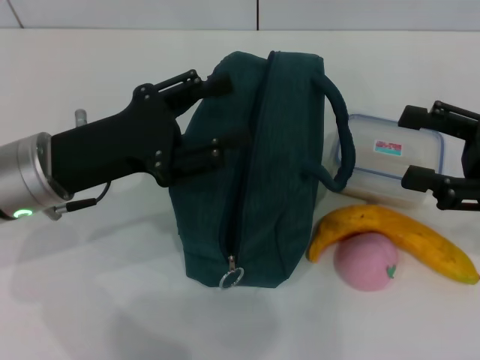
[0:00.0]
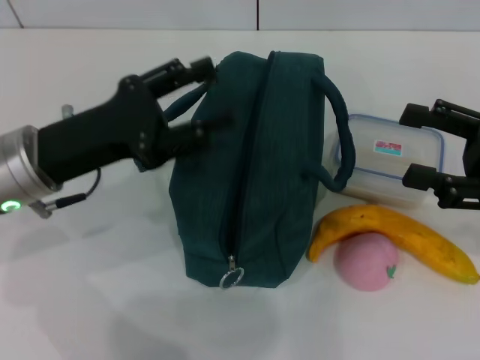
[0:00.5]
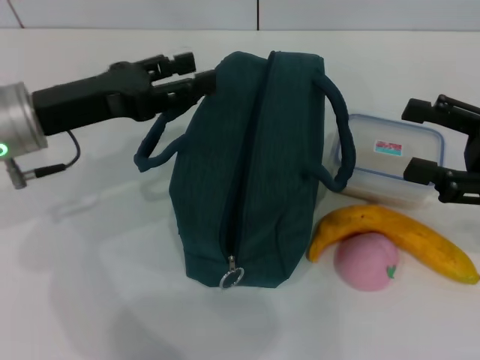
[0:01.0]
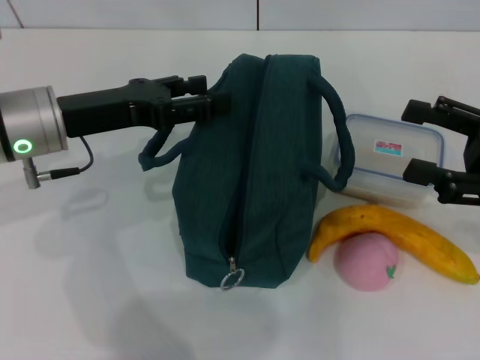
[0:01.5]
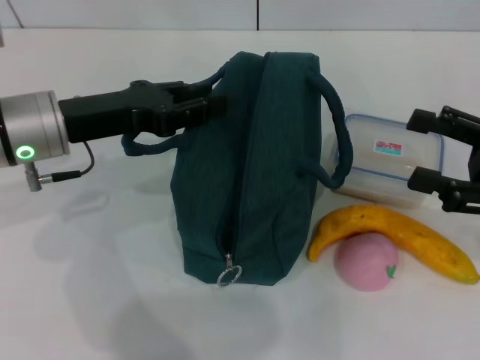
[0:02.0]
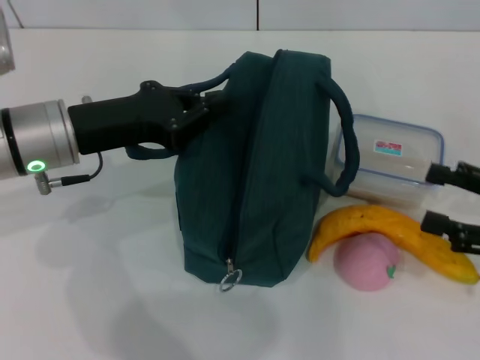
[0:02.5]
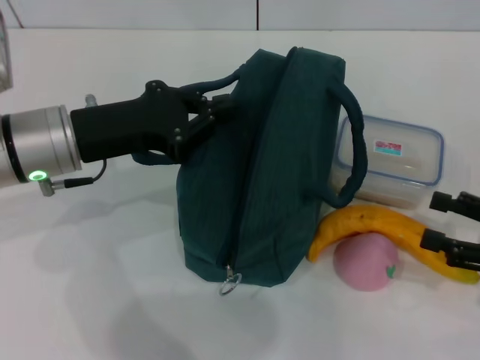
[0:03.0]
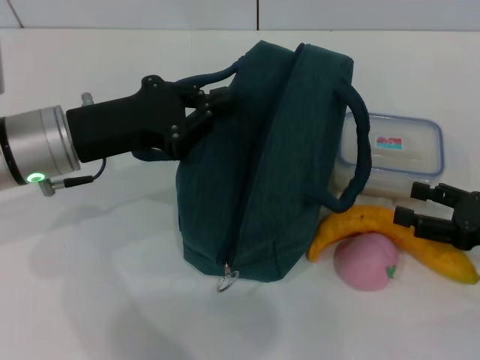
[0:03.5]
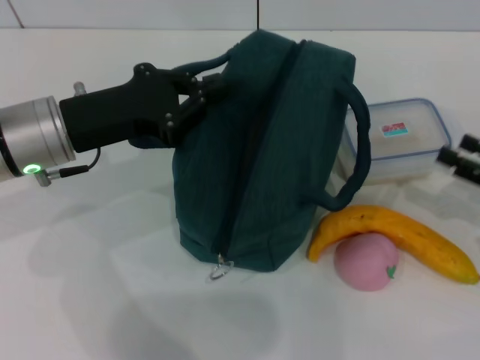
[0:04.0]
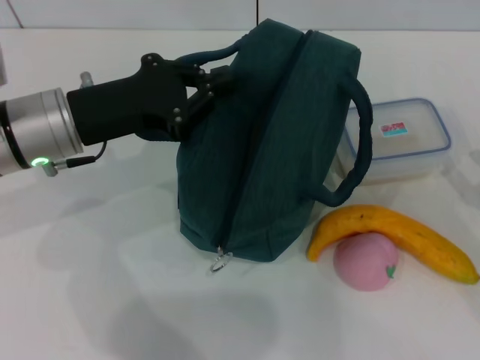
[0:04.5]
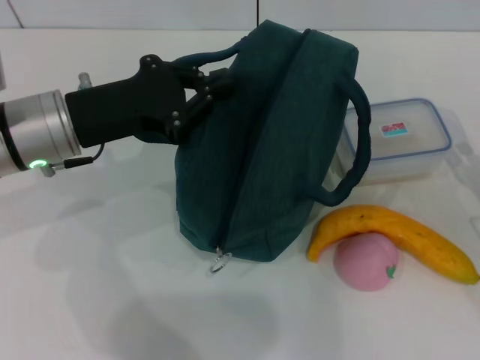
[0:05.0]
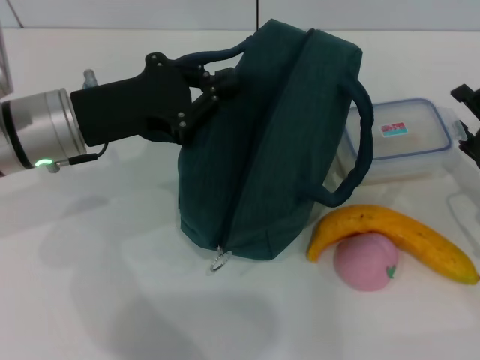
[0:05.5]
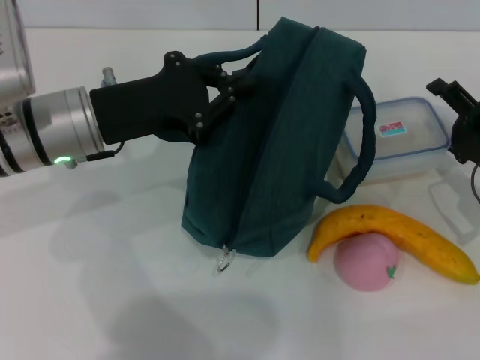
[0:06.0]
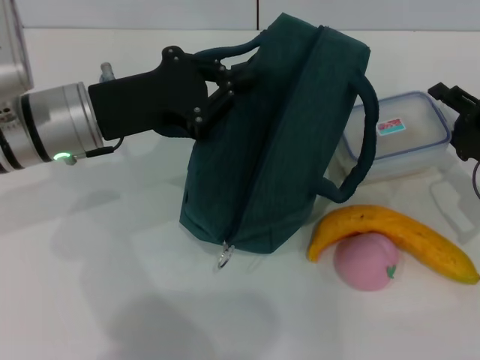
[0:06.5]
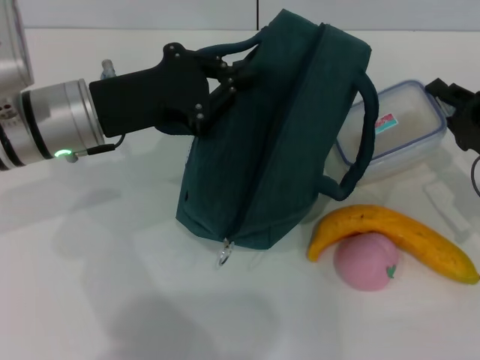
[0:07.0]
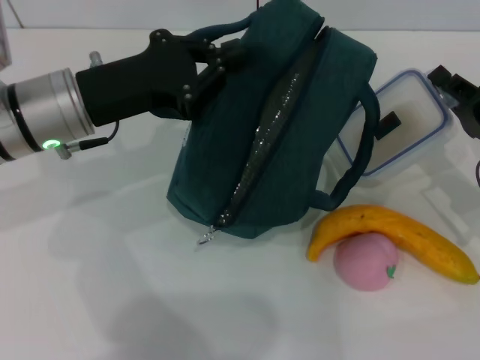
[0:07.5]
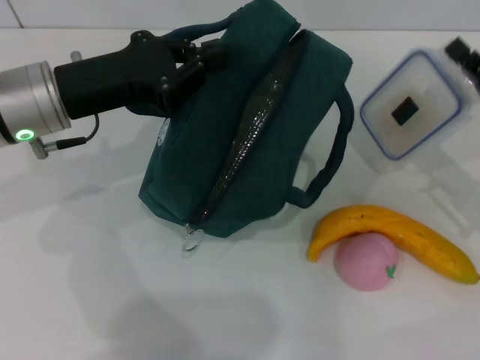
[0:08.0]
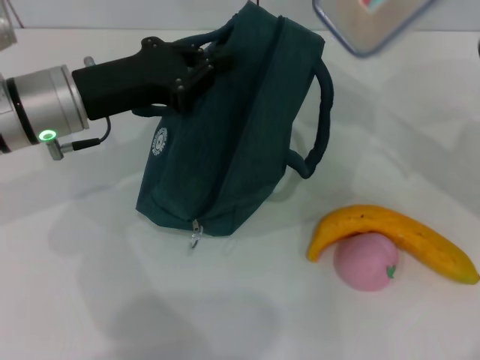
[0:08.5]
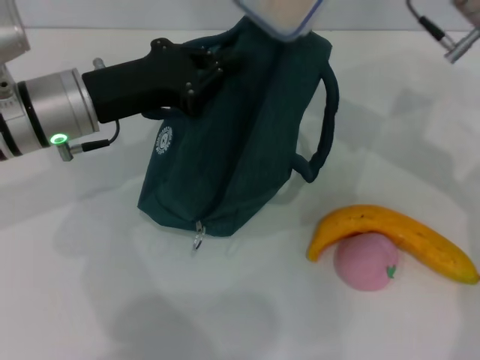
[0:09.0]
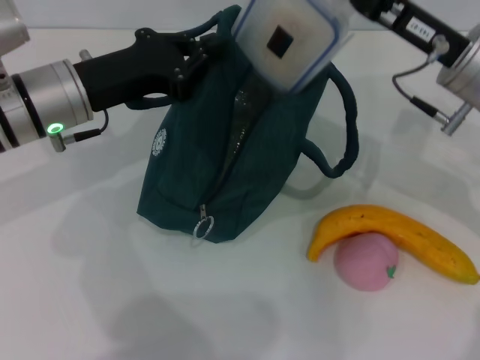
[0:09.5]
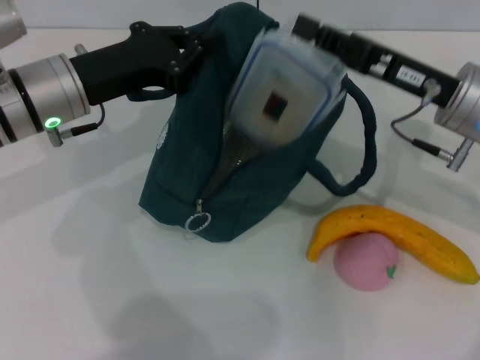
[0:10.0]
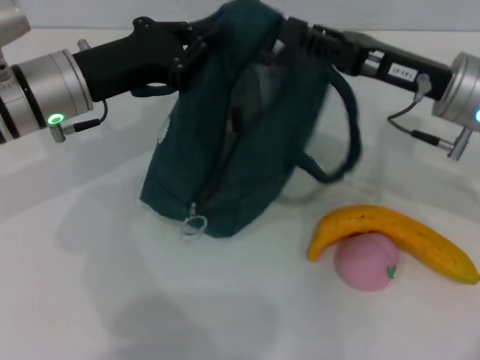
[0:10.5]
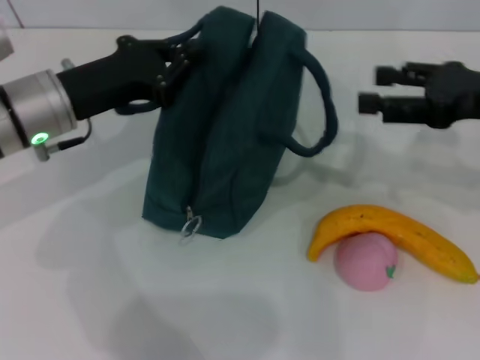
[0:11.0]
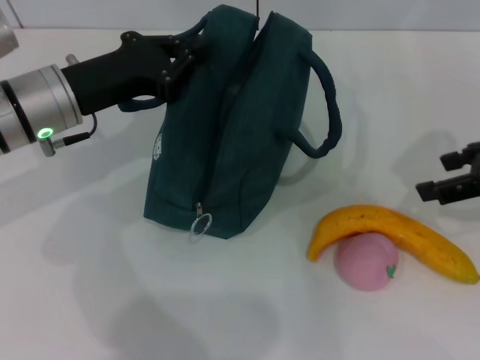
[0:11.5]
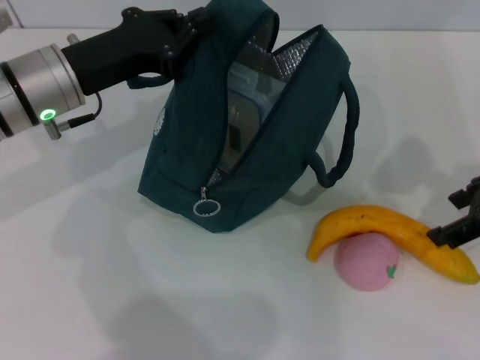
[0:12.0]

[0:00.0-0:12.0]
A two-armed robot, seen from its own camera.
Step, 0:00.0 to 0:04.5: Hold the lunch bag with your left hand.
Step, 0:05.0 to 0:06.5: Pick up the lunch box with your right hand.
Step, 0:07.0 to 0:10.5: Place the lunch box into the lunch bag with your right hand.
0:02.0 to 0:04.0: The right gripper is displaced downward by roughly 5 cm. Meanwhile the left gripper closes its fingers.
0:04.0 to 0:06.0: The right gripper is displaced to the left by some 5 cm.
0:06.0 to 0:08.0: The right gripper closes its fingers.
0:08.0 to 0:10.0: The right gripper heads to the left and upward, covering approximately 10 cm.
0:10.0 to 0:12.0: The right gripper shifts roughly 10 cm to the right and upward, and opens up.

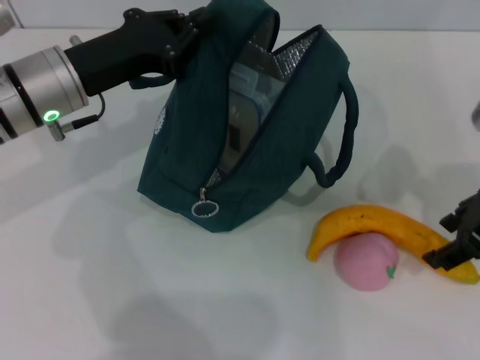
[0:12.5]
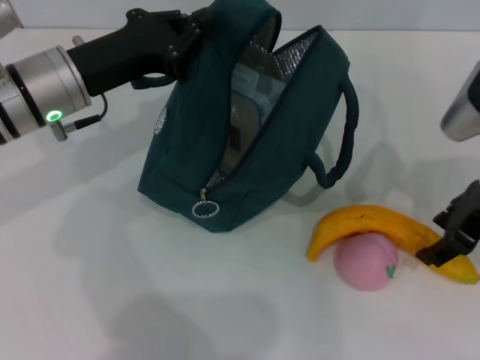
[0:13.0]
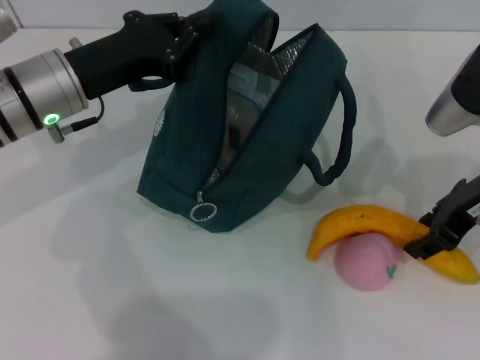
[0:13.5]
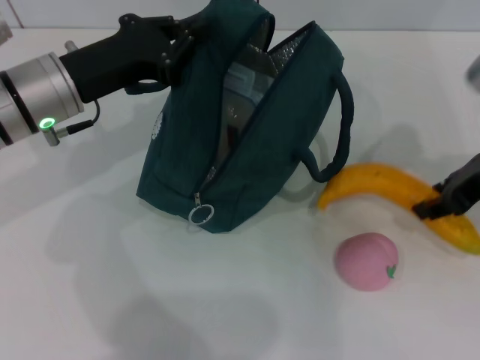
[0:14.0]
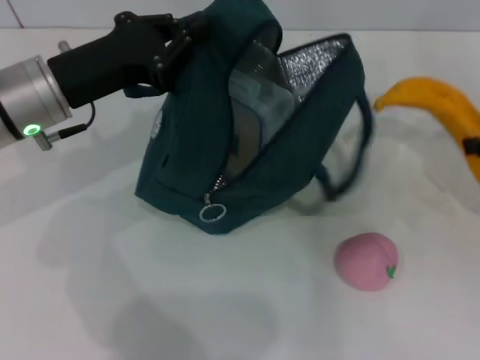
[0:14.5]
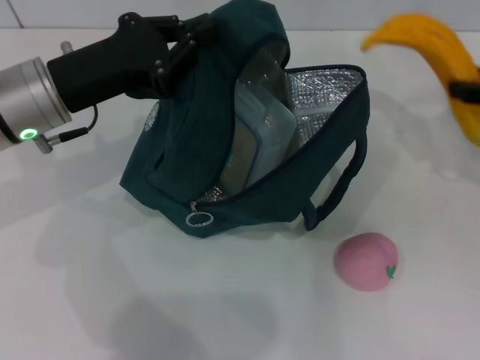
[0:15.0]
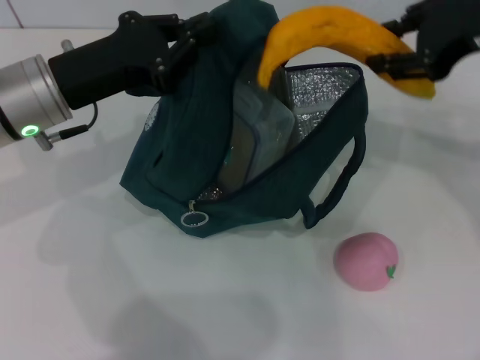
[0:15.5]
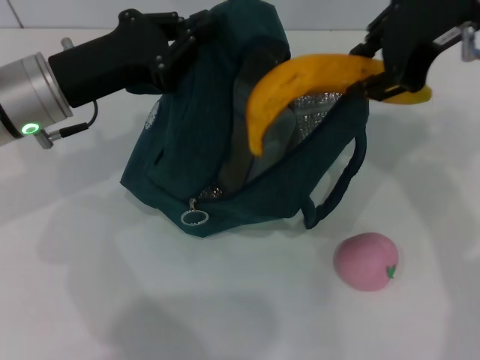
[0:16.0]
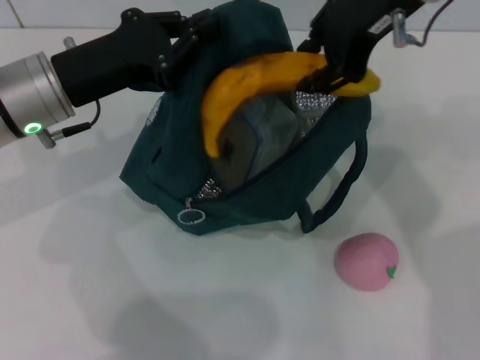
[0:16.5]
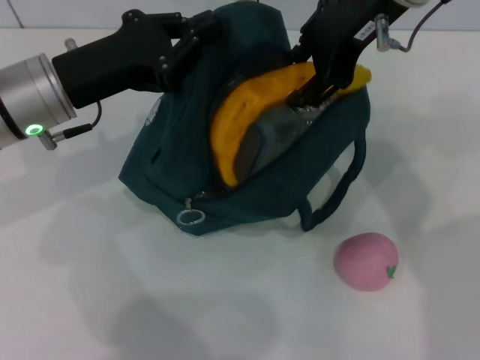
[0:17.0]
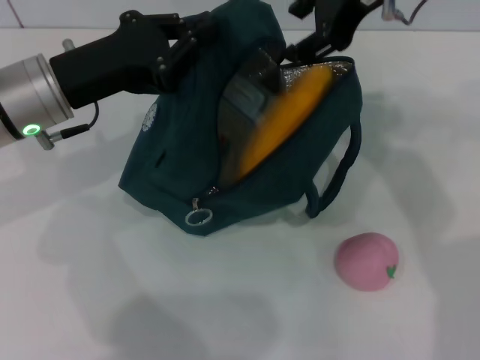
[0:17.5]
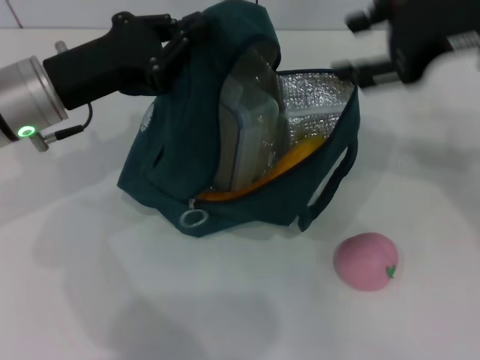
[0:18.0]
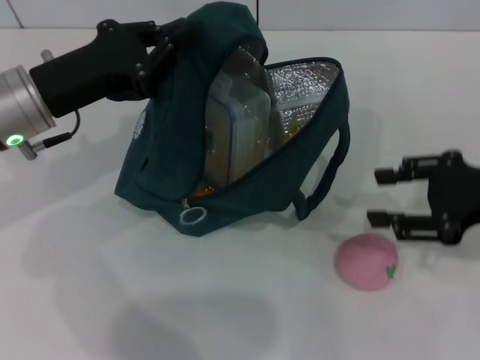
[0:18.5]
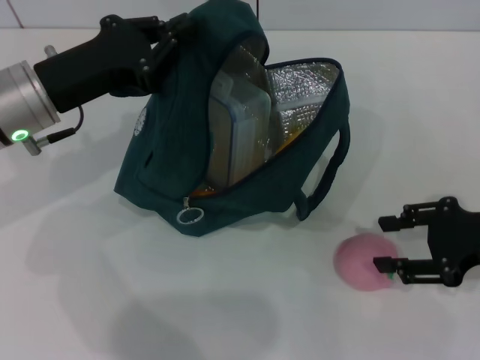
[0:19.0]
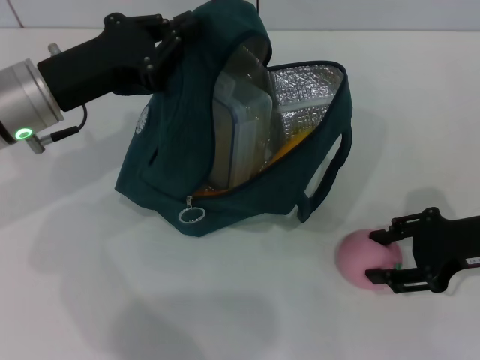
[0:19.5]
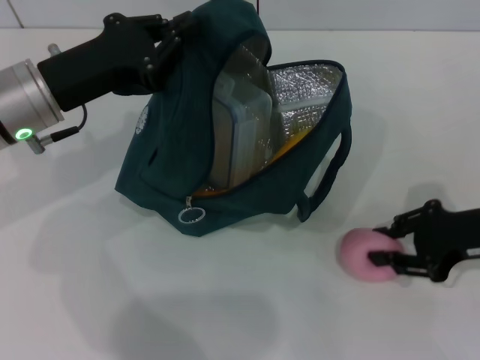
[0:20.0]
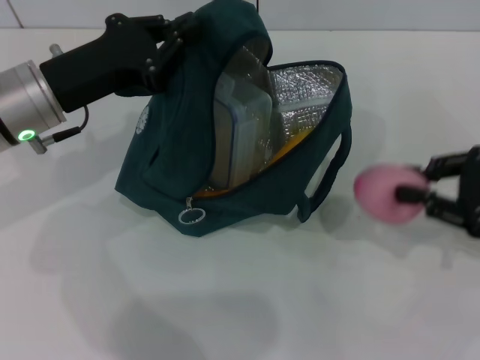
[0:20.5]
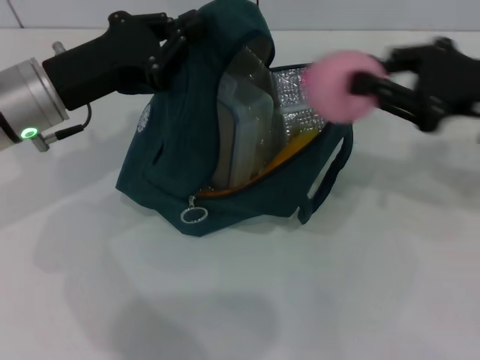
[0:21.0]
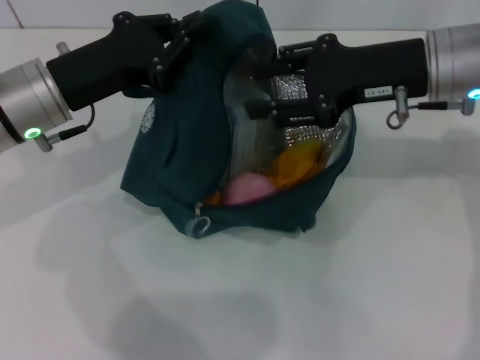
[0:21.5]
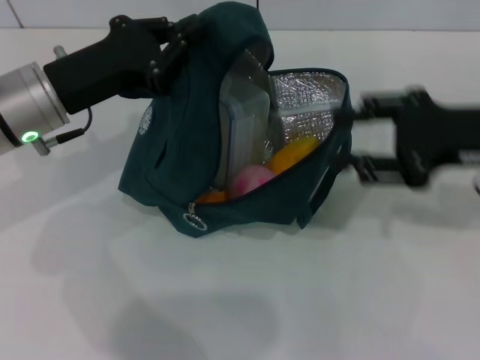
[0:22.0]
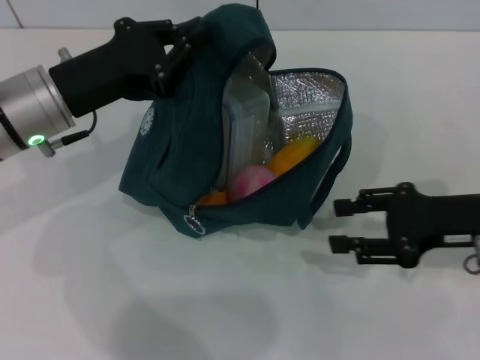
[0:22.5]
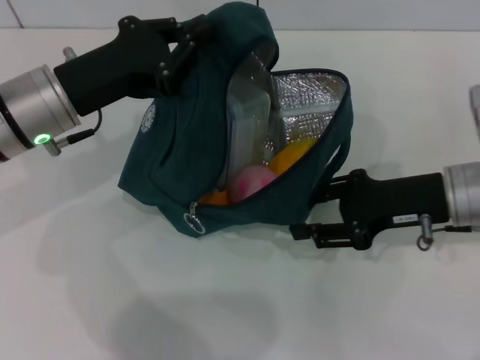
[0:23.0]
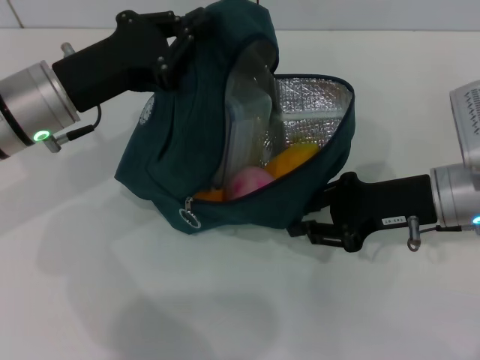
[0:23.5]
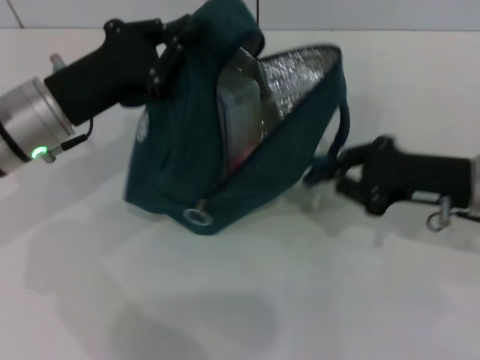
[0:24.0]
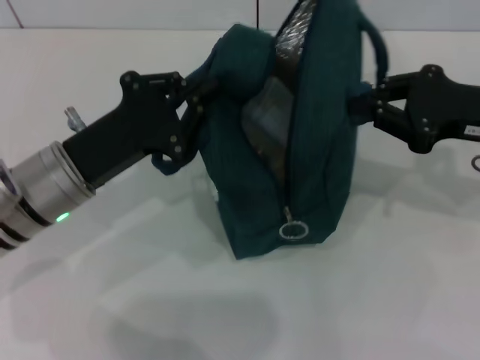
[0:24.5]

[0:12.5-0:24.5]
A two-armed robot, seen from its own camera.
Step, 0:14.0 to 0:17.5: Put the banana into the lunch bag with your right hand.
Step, 0:18.0 to 0:19.5: Grab the peach with your right hand.
0:12.5 to 0:14.5: The right gripper shifts about 5 cm to the right, and closes its fingers.
0:14.5 to 0:16.5: The right gripper is displaced to the left and upward by roughly 25 cm.
0:16.5 to 0:18.5: The right gripper heads to the right, downward and backward, covering approximately 25 cm.
0:18.5 to 0:20.5: The right gripper closes up.
0:20.5 to 0:22.5: The right gripper goes about 5 cm to the left, and opens.
0:22.5 to 0:24.5: The left gripper shifts some 5 cm backward. The right gripper is displaced upward by some 5 cm, and closes its fingers.

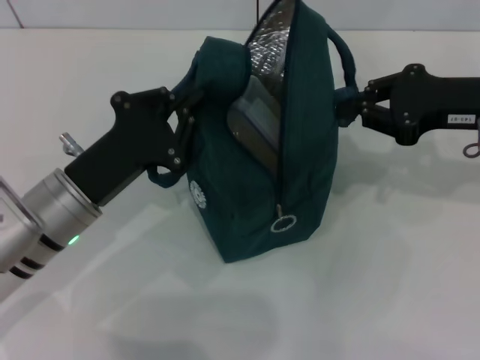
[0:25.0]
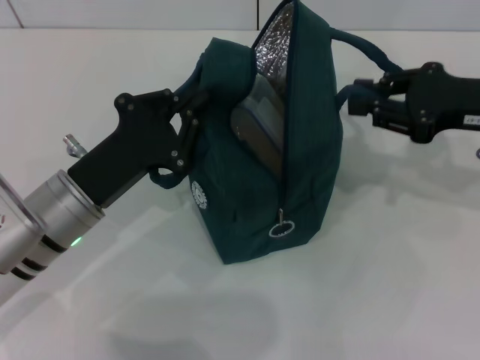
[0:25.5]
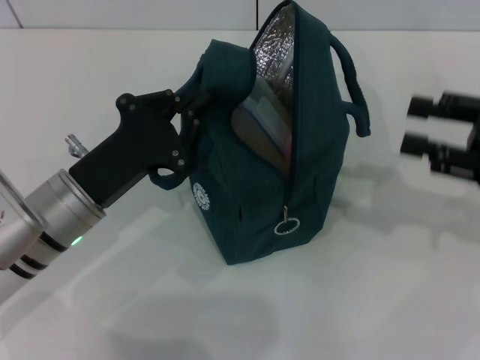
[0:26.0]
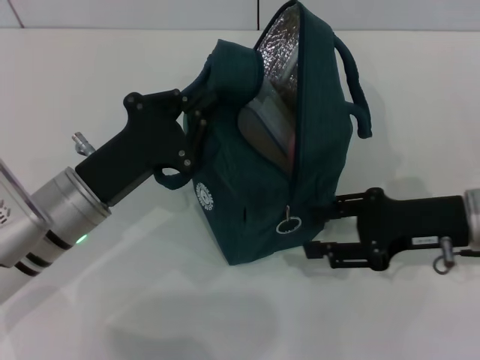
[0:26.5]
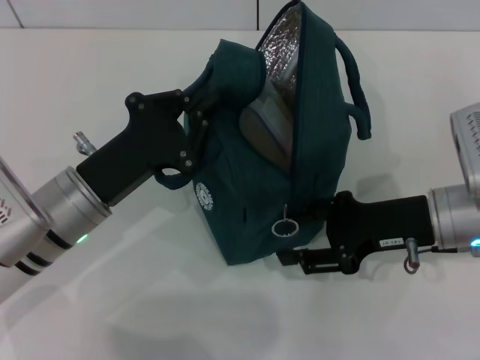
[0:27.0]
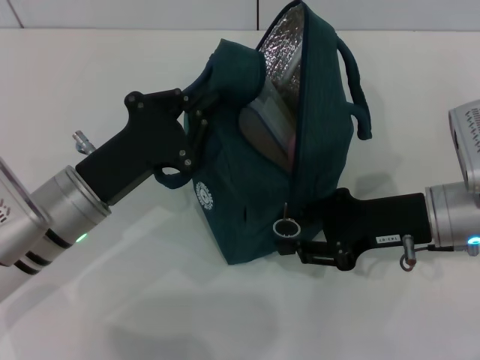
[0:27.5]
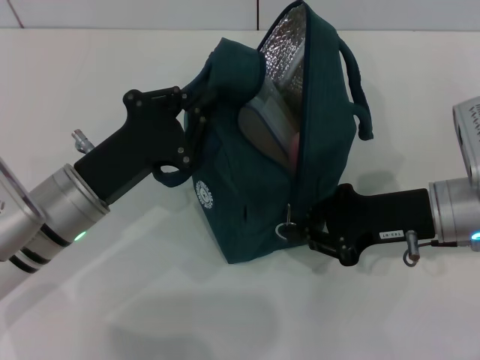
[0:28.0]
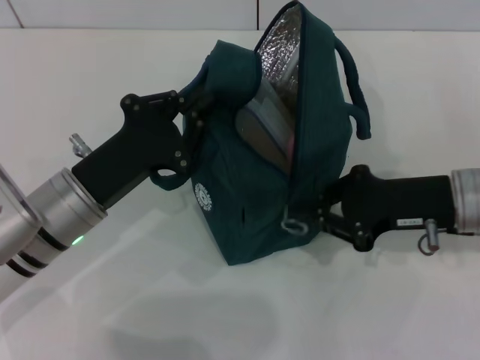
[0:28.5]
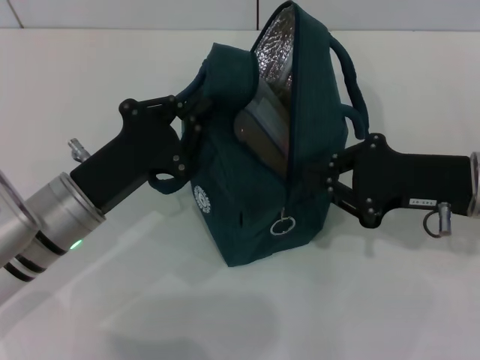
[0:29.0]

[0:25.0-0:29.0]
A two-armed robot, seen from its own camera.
0:25.0 to 0:27.0: The right gripper moves downward, approximately 10 cm, and opens.
0:27.0 to 0:29.0: The right gripper closes.
